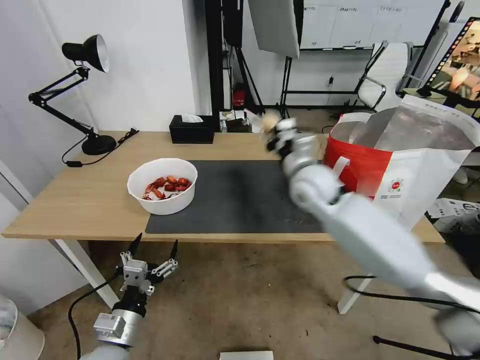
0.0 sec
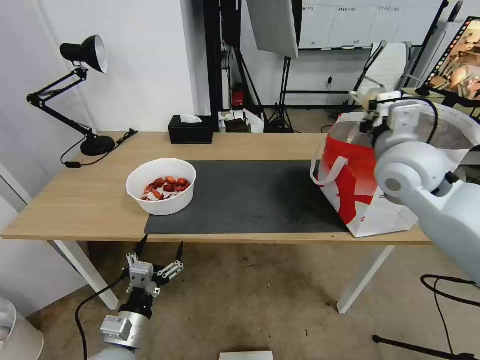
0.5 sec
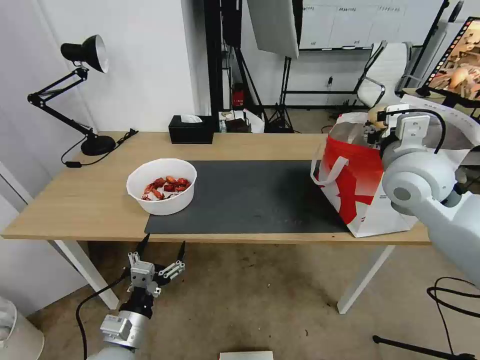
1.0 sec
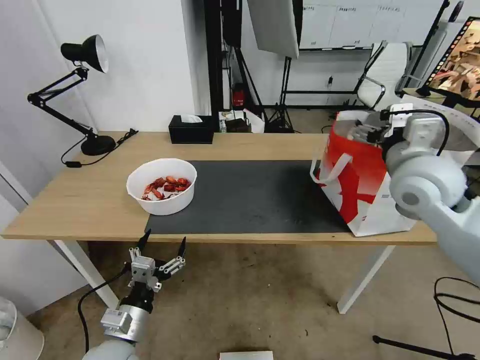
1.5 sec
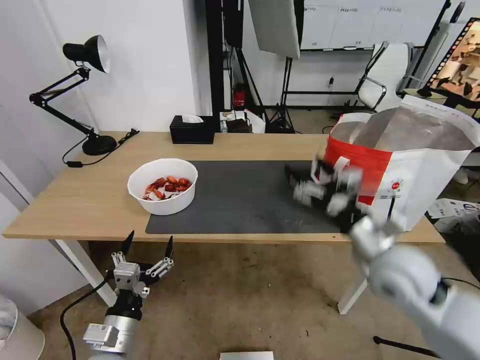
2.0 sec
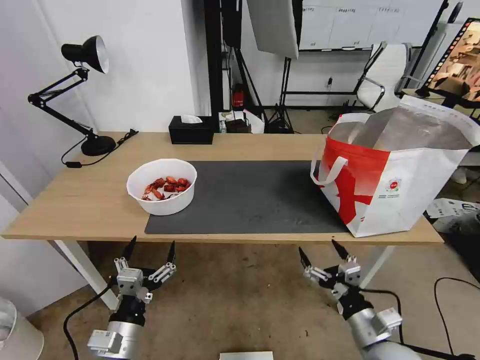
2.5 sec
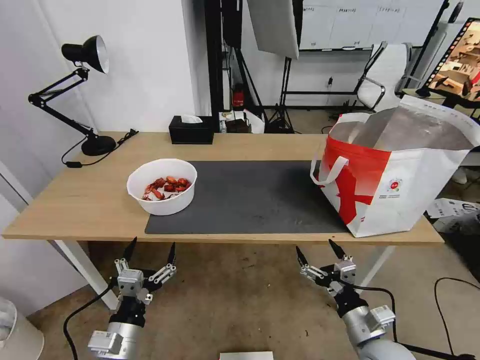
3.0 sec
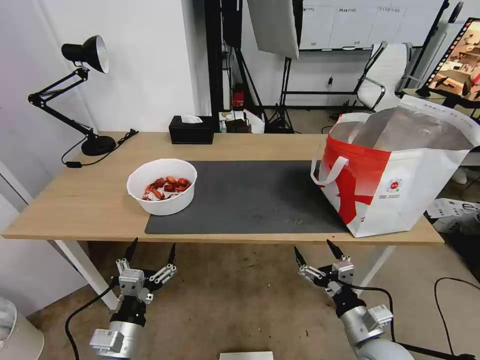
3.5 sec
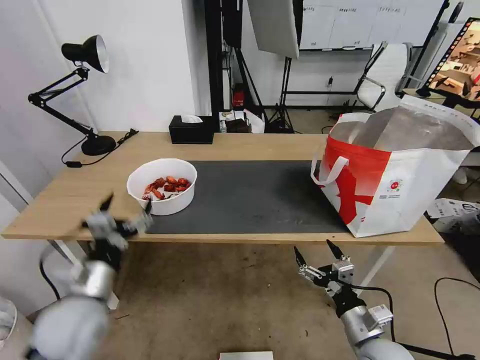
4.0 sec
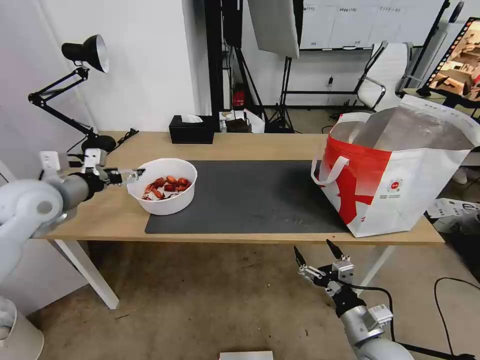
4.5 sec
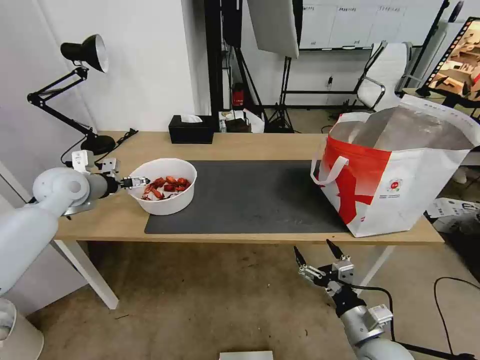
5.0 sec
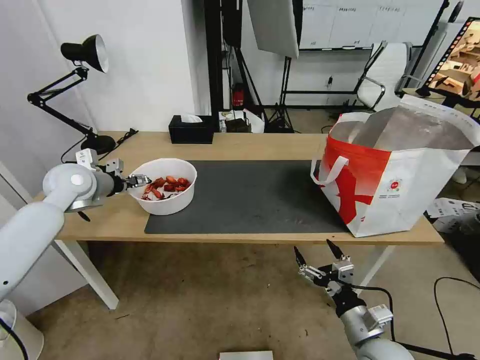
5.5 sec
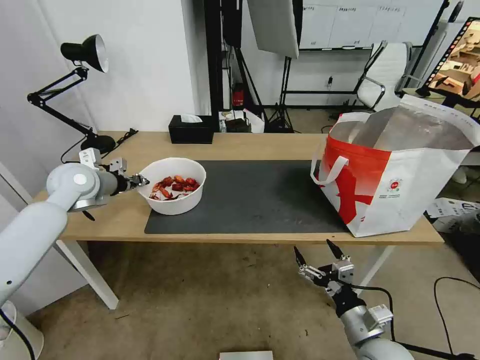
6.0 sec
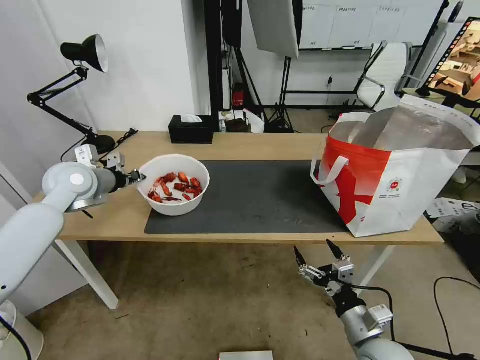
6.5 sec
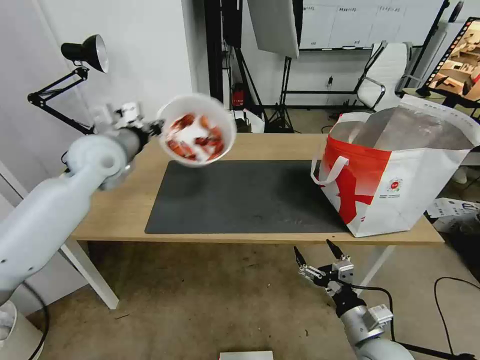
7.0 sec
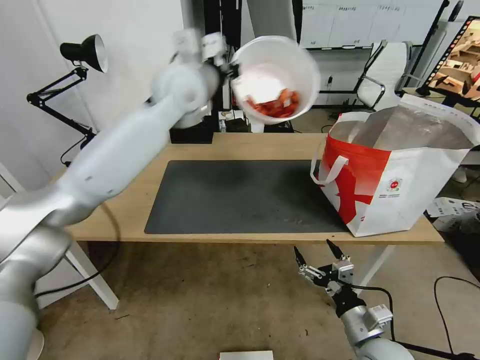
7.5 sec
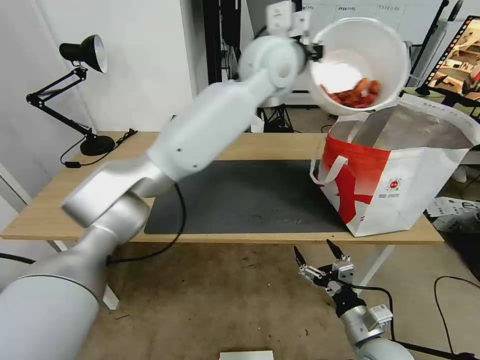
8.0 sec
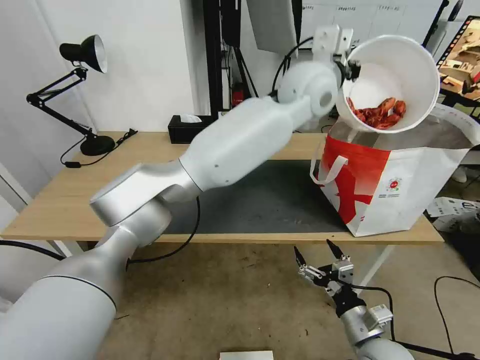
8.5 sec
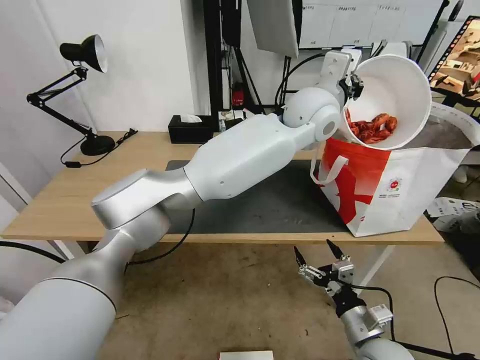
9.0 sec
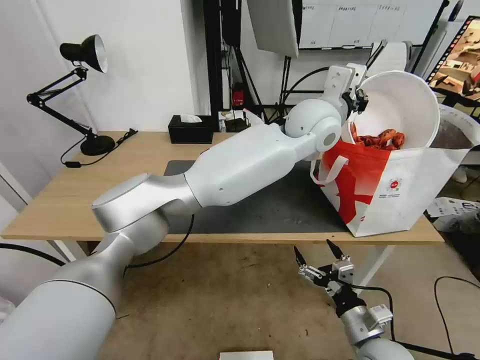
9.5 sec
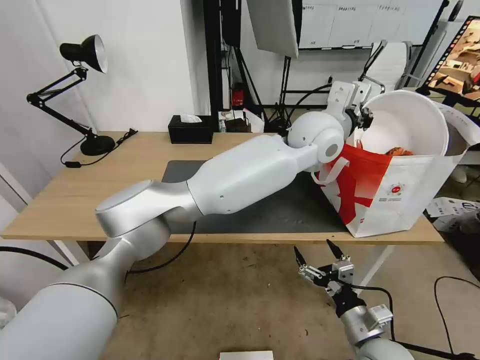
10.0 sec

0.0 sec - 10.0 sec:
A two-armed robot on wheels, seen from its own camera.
Task of the whole recording: Pick up the trash from the table and place it into the takeout bag.
0.0 sec - 2.0 sec: The right gripper is displaced backward and to the right by approximately 20 cm, and opens up.
2.0 sec - 4.0 sec: The right gripper moves downward and backward, about 20 cm; the left gripper moves upward, forward and to the left, approximately 15 cm.
4.0 sec - 6.0 sec: The left gripper heads forward, covering roughly 25 cm, and closes its fingers.
6.0 sec - 8.0 sec: The left gripper goes roughly 50 cm to the right and upward.
8.0 sec - 10.0 sec: The left gripper goes some 15 cm downward, to the right and backward.

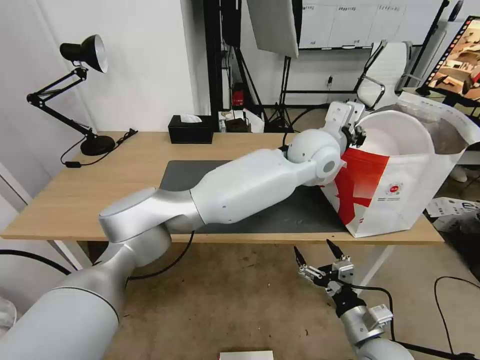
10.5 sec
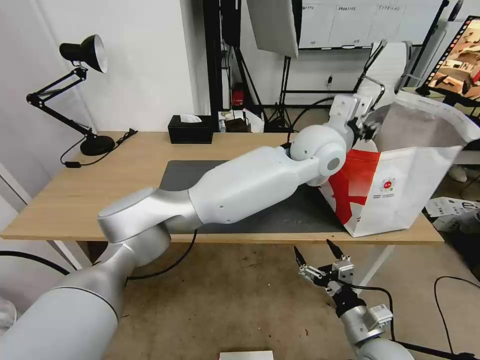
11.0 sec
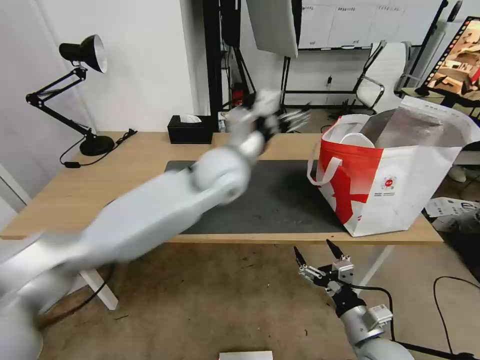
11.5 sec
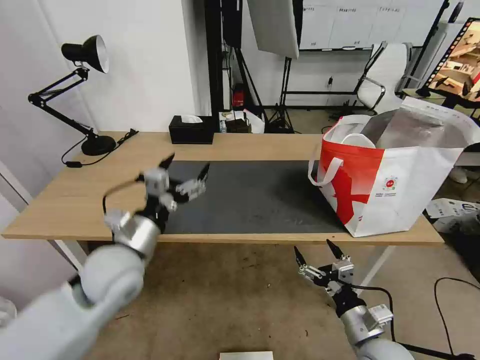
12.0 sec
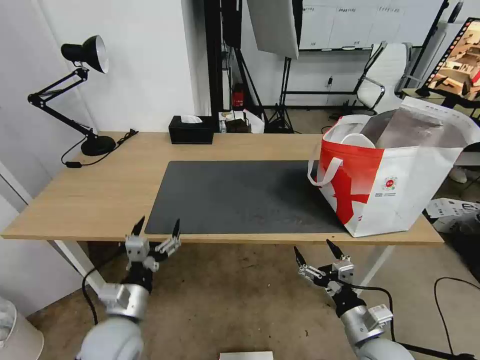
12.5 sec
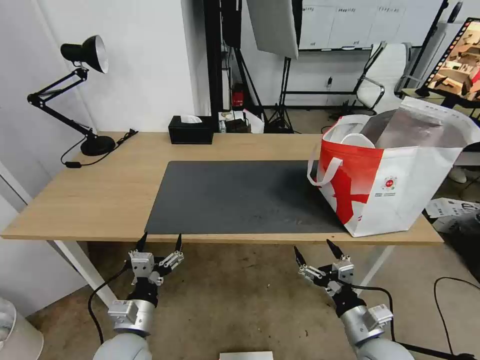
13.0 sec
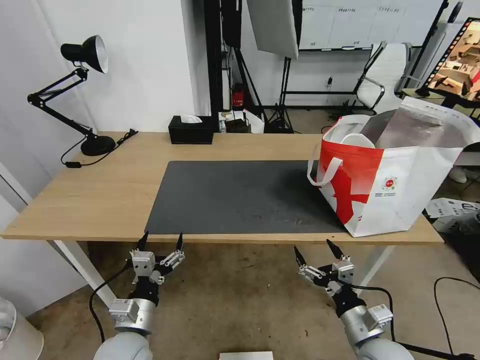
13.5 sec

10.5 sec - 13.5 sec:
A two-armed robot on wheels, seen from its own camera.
Task of the whole recording: Pick up the trash from the table and place it into the takeout bag.
10.5 sec - 12.0 sec: The left gripper is displaced to the left and backward by some 40 cm, and opens.
12.0 sec - 13.5 sec: The left gripper shifts some 20 cm downward and backward.

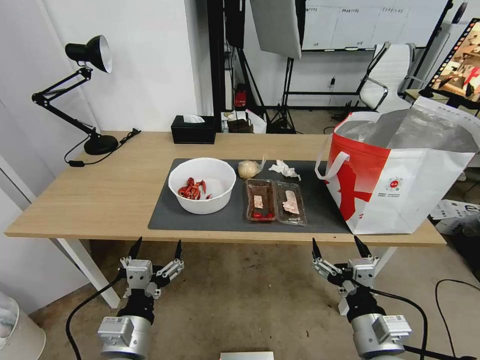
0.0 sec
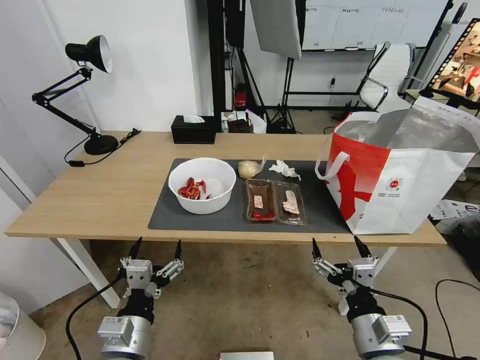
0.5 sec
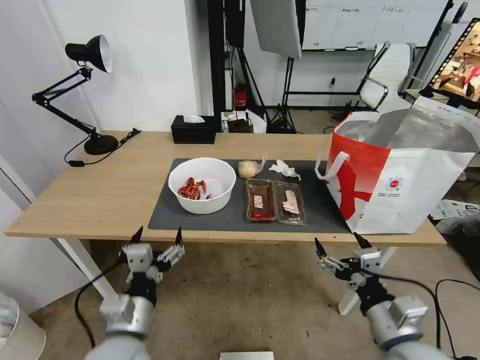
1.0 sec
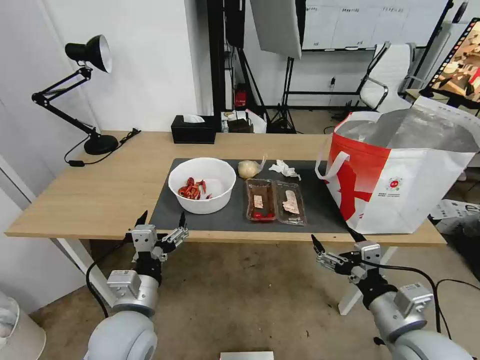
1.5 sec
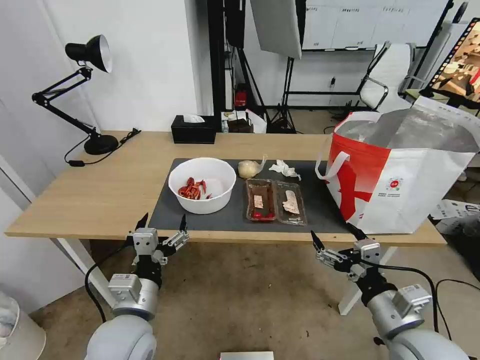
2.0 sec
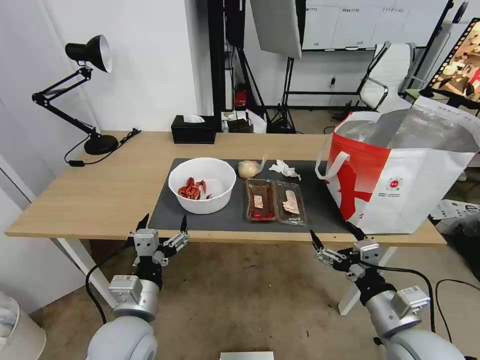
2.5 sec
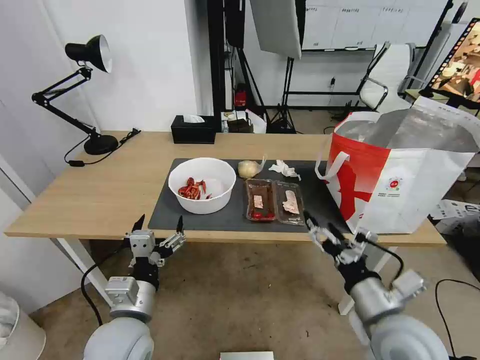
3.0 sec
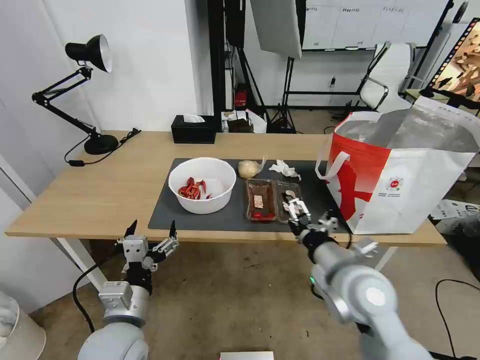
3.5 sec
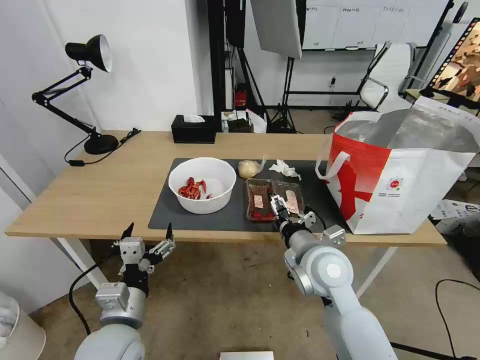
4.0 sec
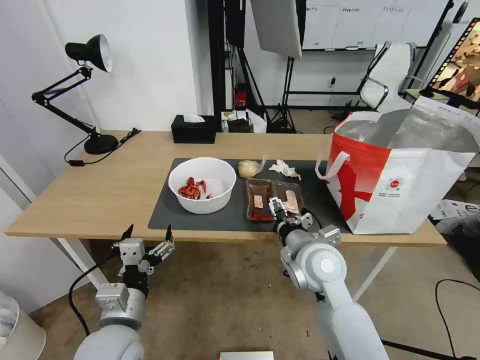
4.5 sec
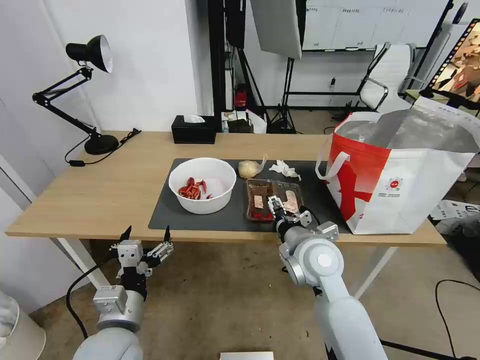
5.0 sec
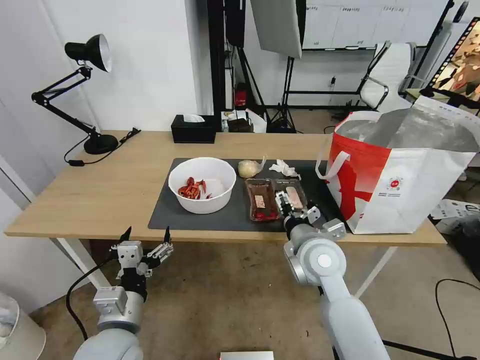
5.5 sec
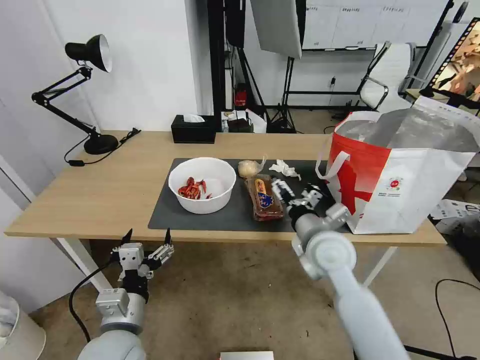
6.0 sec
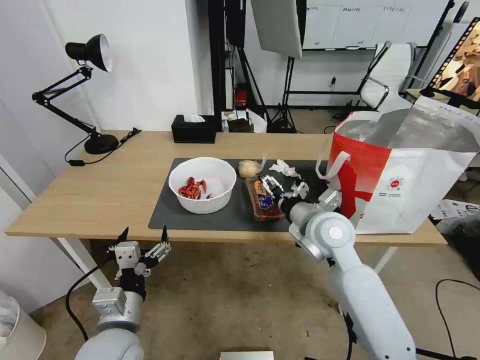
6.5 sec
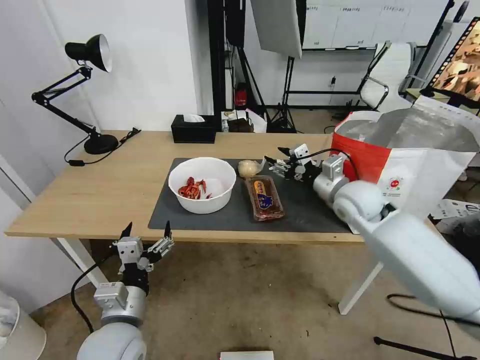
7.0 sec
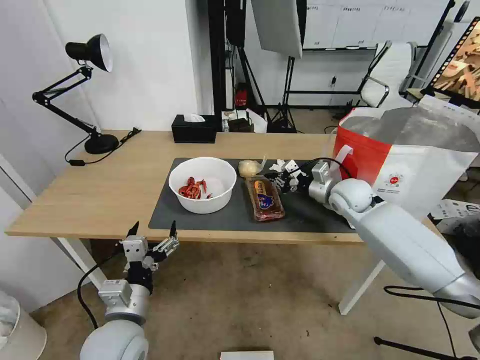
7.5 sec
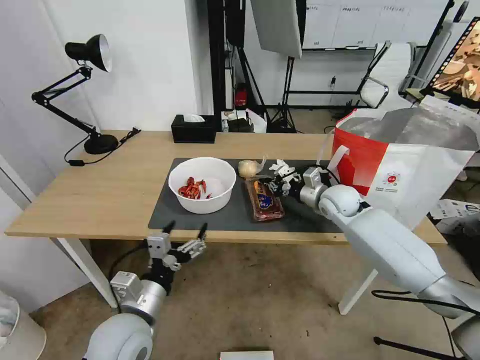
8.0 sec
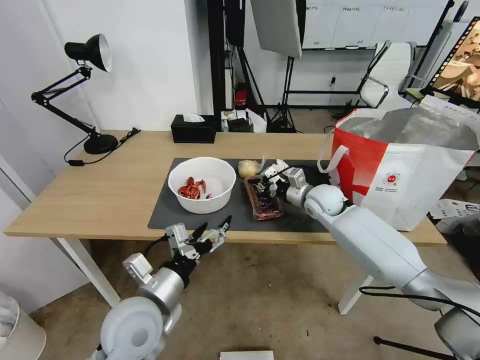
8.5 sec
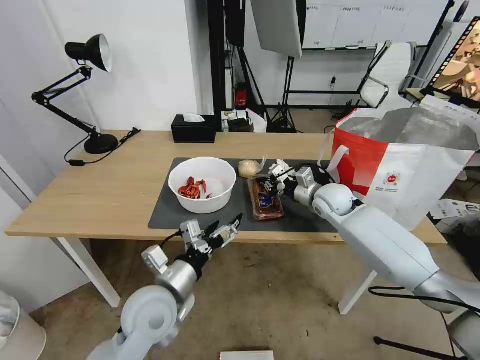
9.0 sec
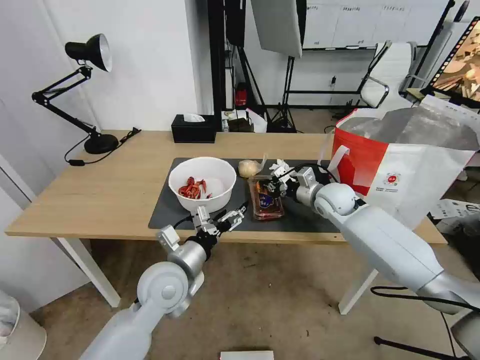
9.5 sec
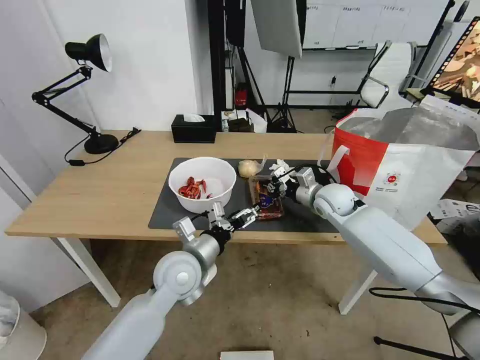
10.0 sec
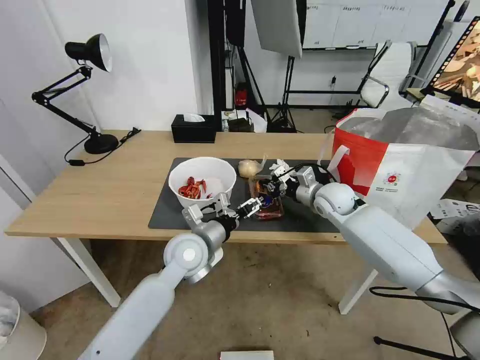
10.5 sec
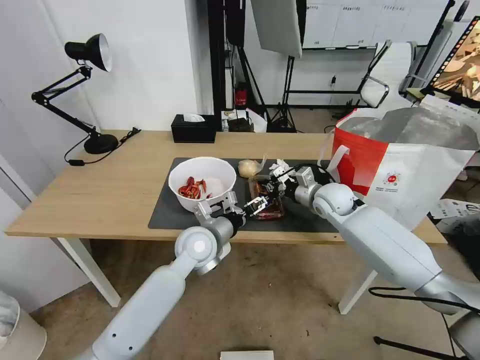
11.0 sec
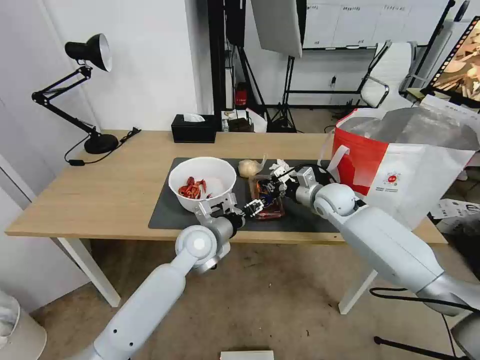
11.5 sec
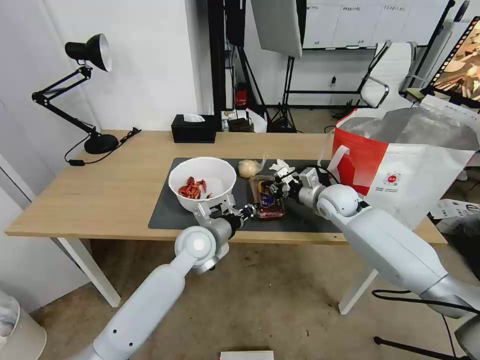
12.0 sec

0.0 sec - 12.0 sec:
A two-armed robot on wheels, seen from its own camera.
Task of the whole recording: Pick up the trash from the table and place it into the takeout bag.
2.0 sec - 4.0 sec: The right gripper travels forward and to the left by some 20 cm.
6.0 sec - 8.0 sec: The right gripper goes about 20 cm forward and to the right, and closes its fingers.
8.0 sec - 10.0 sec: The left gripper shifts approximately 15 cm forward and to the right.
10.0 sec - 12.0 sec: The left gripper is displaced forward by some 5 cm, and closes up.
